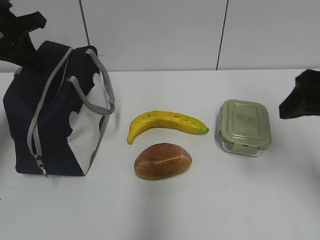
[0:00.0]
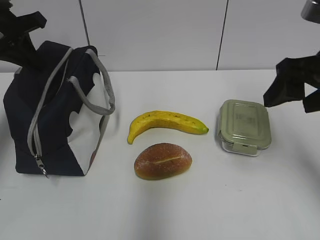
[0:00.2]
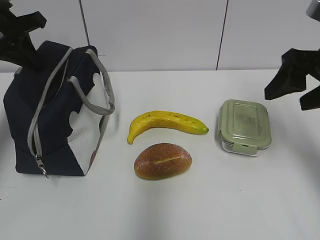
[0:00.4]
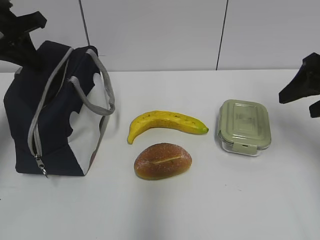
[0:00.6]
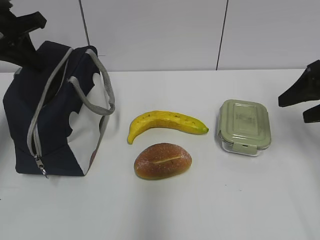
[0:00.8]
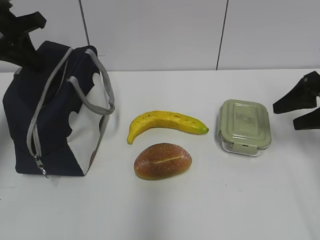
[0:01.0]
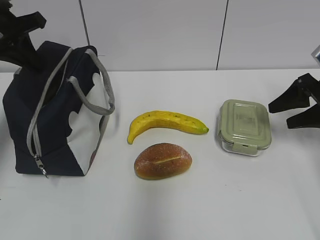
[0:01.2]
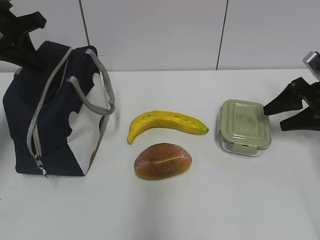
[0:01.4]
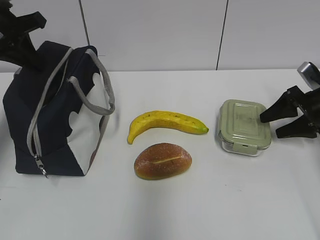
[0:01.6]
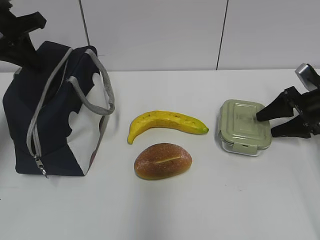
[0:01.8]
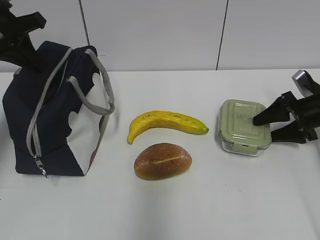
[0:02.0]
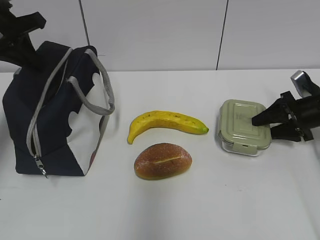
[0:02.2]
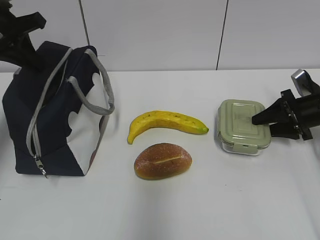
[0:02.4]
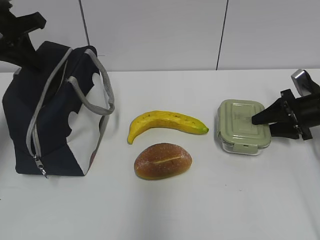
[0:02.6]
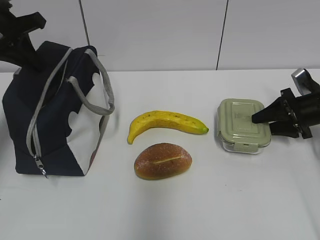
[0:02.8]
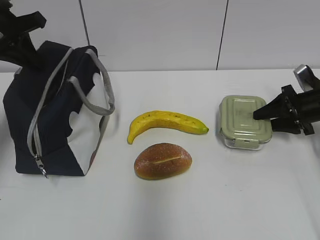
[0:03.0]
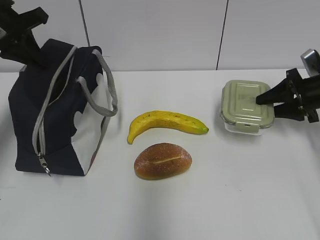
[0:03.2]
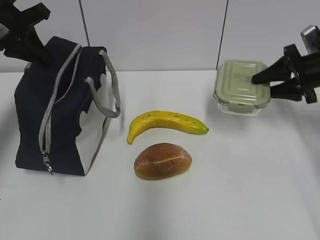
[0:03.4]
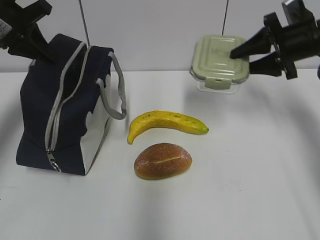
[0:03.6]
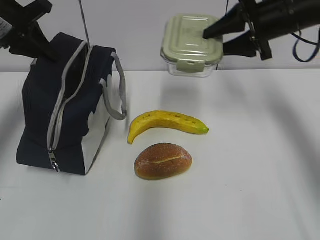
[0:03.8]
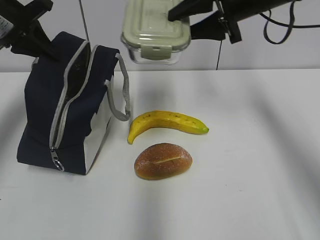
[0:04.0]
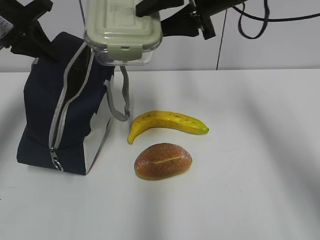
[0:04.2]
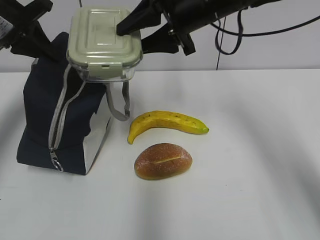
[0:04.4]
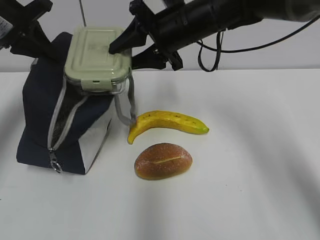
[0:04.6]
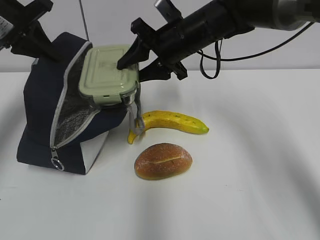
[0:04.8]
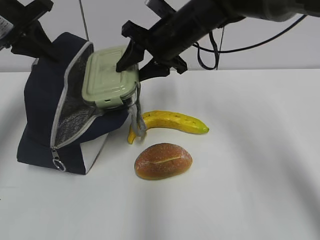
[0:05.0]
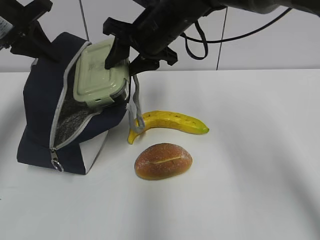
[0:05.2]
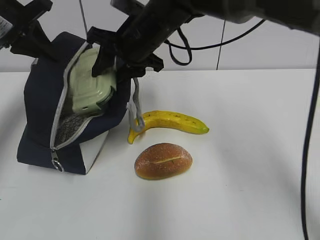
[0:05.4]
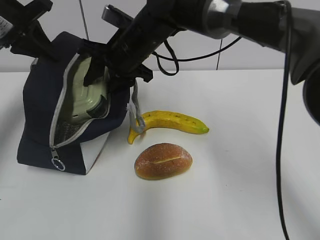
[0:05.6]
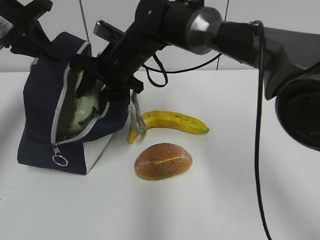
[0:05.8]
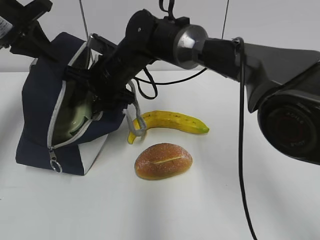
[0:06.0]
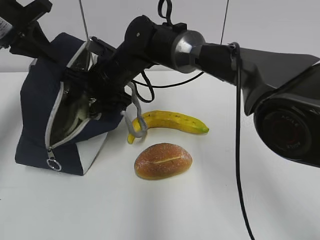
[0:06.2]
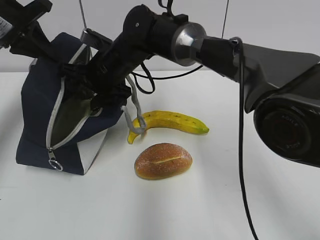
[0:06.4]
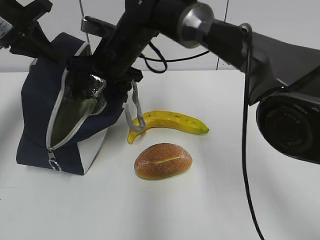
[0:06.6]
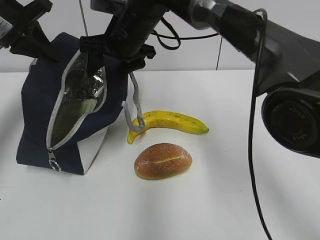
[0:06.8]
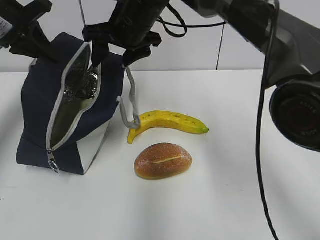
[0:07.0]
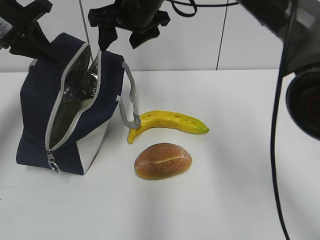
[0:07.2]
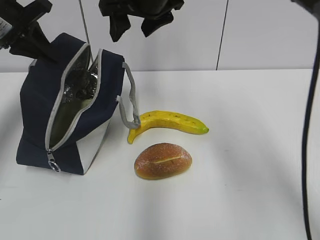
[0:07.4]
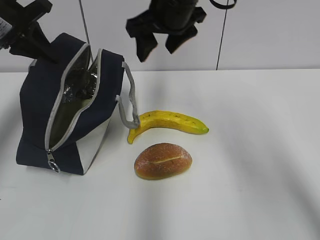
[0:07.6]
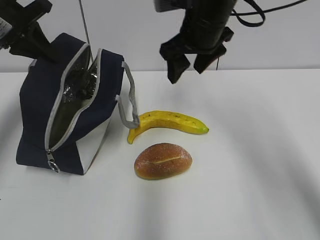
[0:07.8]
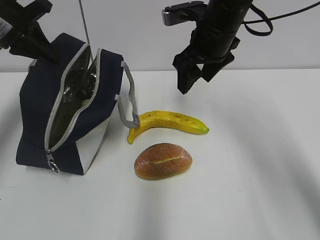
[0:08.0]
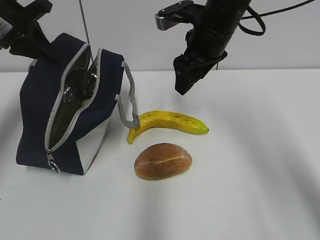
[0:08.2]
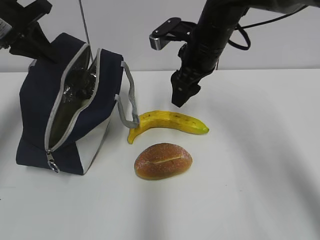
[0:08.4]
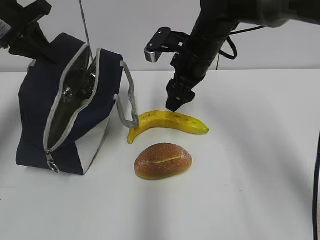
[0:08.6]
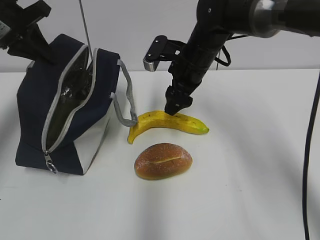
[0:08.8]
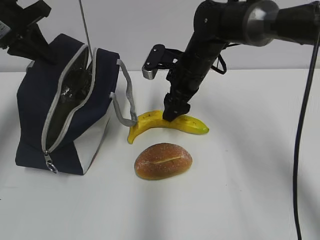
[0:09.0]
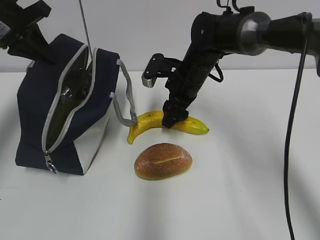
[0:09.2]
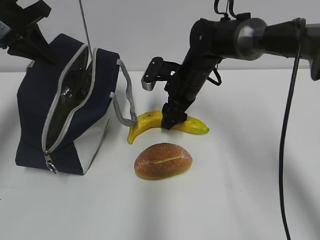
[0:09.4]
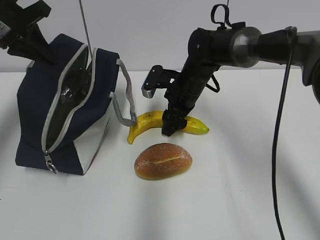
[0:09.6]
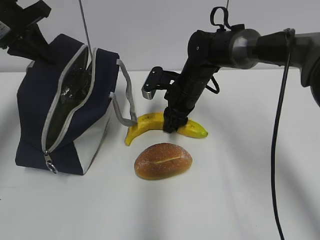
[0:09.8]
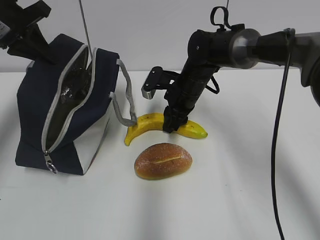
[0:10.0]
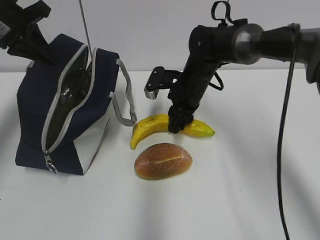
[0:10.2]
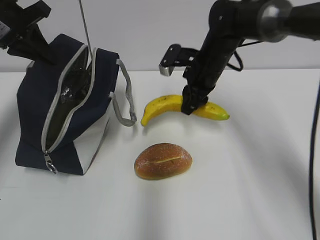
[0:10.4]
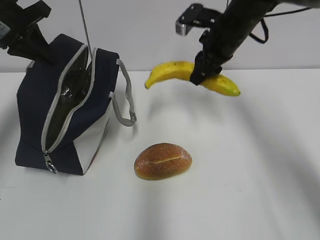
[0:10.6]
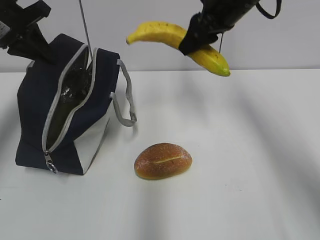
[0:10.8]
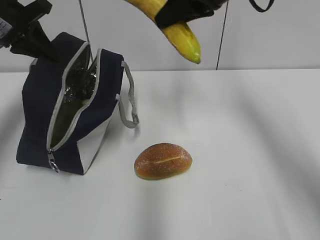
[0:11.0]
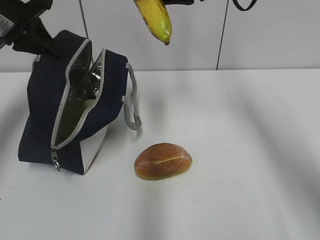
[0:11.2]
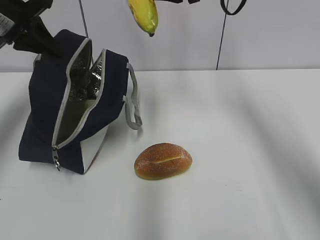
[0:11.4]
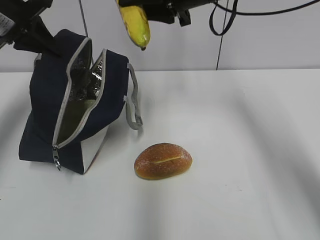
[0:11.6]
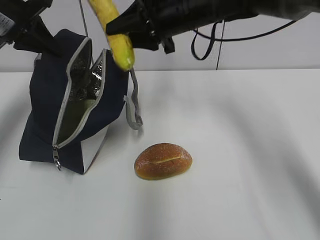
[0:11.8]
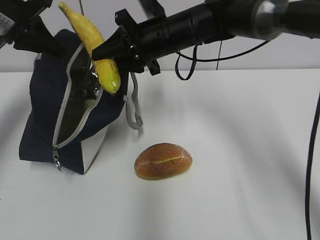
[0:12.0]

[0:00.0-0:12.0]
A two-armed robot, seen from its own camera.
Step, 0.0 to 2.4 s: Grab the lunch box with your right hand.
Step, 5.0 to 7.0 s: Place it into the bag with your right hand.
Step, 7.2 to 9.8 s: Grab the banana with your right hand.
0.0 to 1.6 s: The right gripper travels downward, forward and to the right by approximately 25 cm.
1.6 to 3.0 s: The right gripper closes its fingers.
3.0 to 4.4 s: The right gripper heads to the left and upward, covering roughly 30 cm.
4.4 to 6.0 s: The right gripper moves to the left and downward, about 20 cm.
6.0 to 7.6 s: The right gripper heads upward and to the right, covering about 15 cm.
7.6 to 9.0 s: The right gripper heads downward, covering roughly 15 cm.
9.0 to 10.4 s: The right gripper closes up.
10.4 to 12.0 s: The right gripper is displaced to the left and upward by roughly 10 cm.

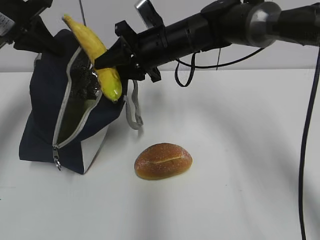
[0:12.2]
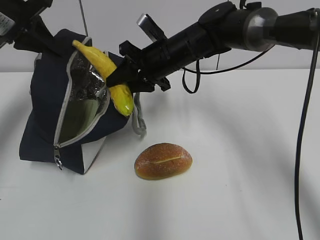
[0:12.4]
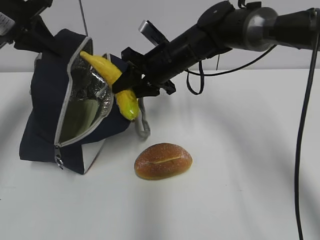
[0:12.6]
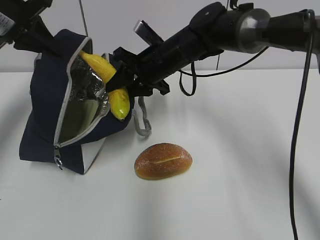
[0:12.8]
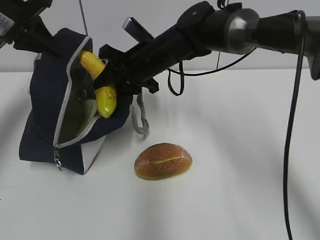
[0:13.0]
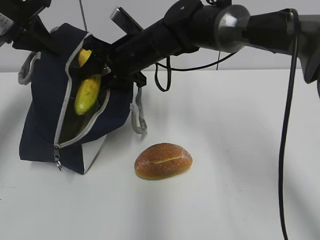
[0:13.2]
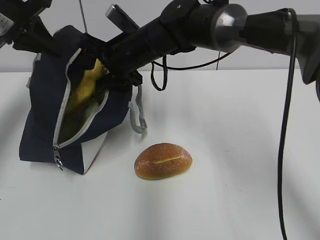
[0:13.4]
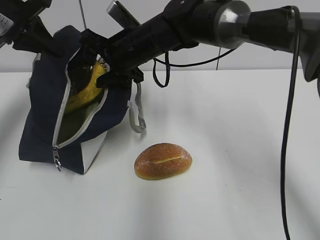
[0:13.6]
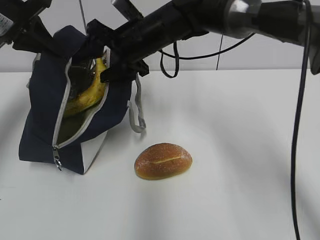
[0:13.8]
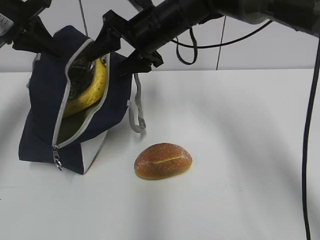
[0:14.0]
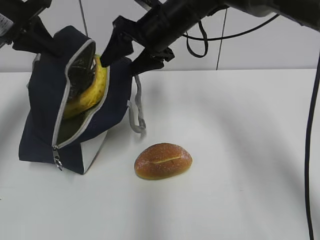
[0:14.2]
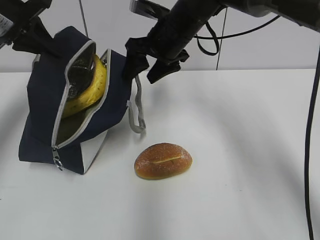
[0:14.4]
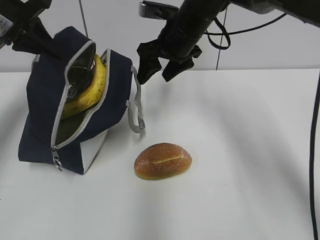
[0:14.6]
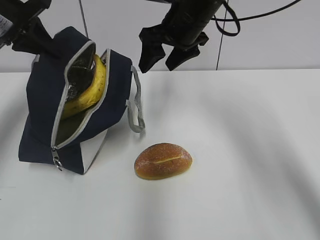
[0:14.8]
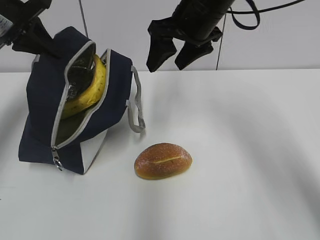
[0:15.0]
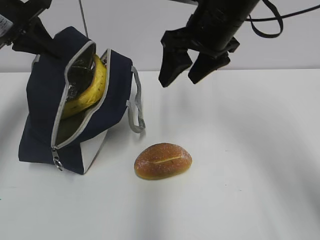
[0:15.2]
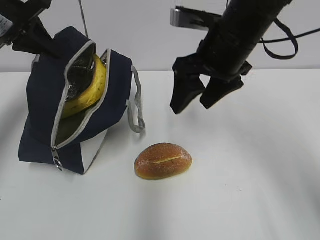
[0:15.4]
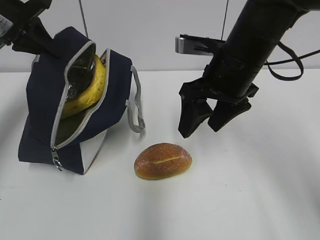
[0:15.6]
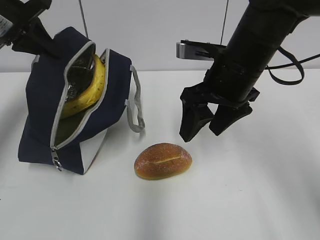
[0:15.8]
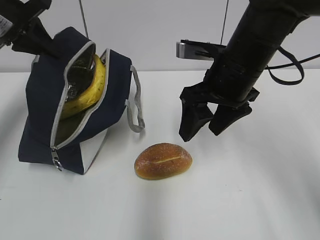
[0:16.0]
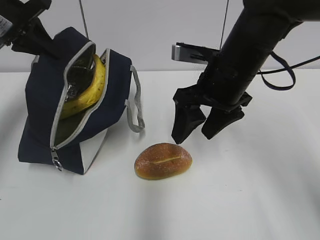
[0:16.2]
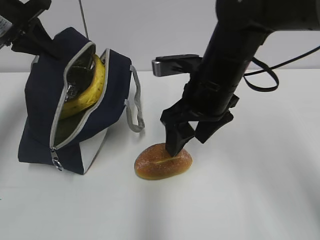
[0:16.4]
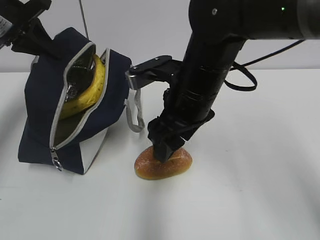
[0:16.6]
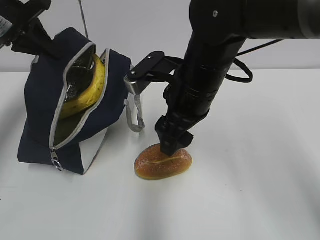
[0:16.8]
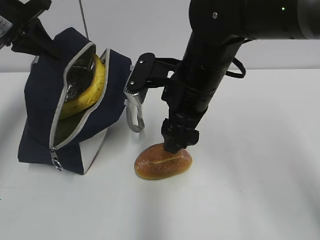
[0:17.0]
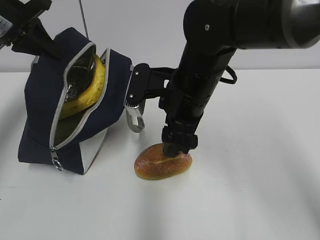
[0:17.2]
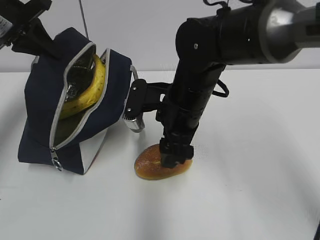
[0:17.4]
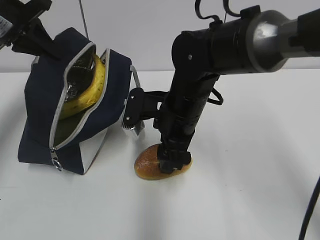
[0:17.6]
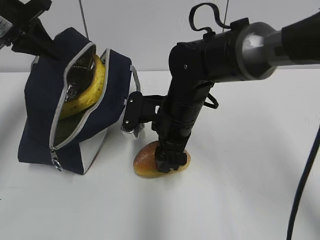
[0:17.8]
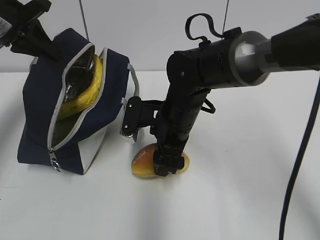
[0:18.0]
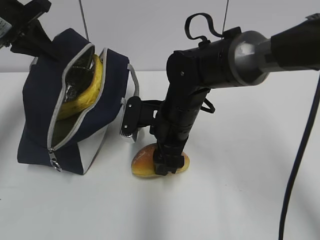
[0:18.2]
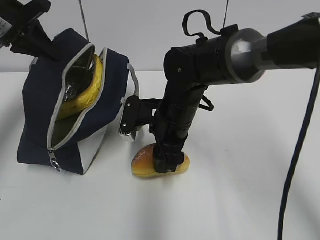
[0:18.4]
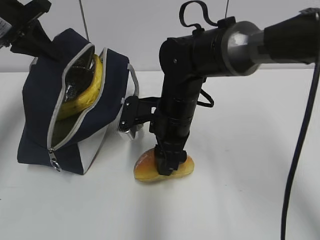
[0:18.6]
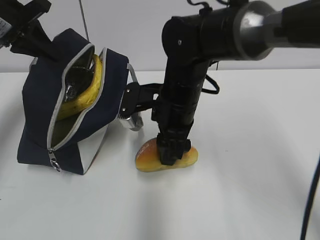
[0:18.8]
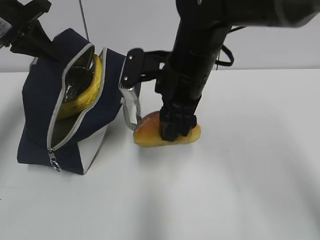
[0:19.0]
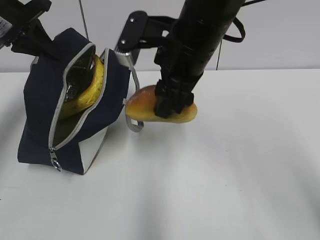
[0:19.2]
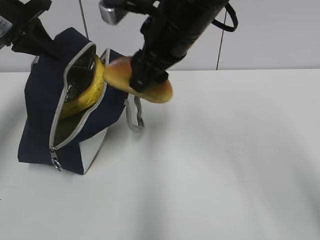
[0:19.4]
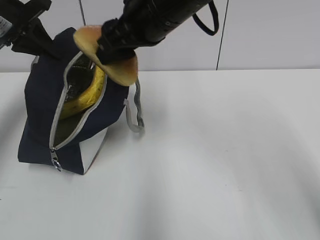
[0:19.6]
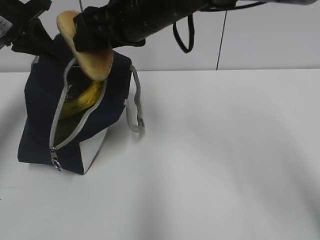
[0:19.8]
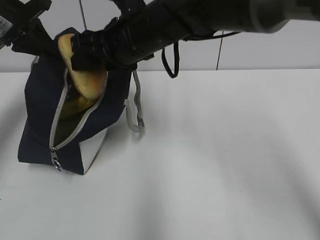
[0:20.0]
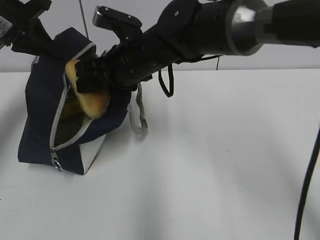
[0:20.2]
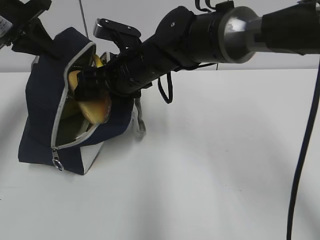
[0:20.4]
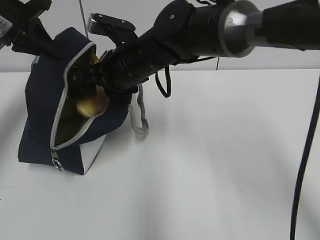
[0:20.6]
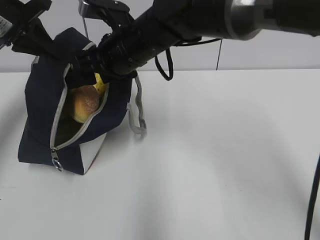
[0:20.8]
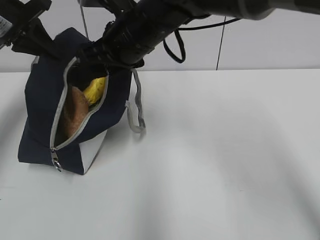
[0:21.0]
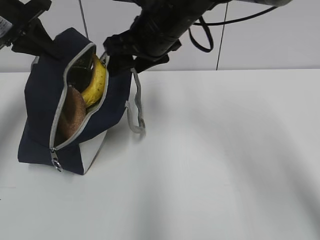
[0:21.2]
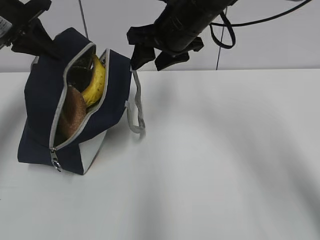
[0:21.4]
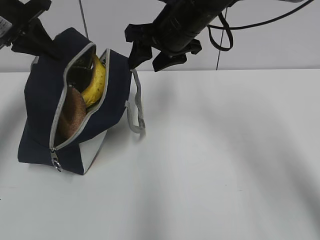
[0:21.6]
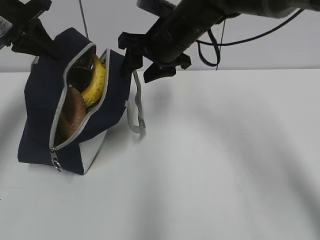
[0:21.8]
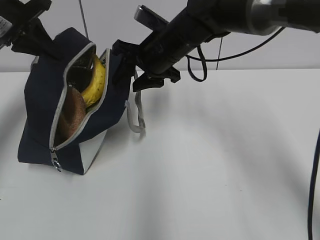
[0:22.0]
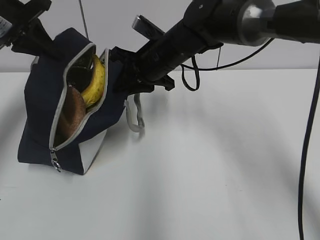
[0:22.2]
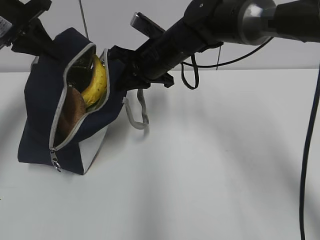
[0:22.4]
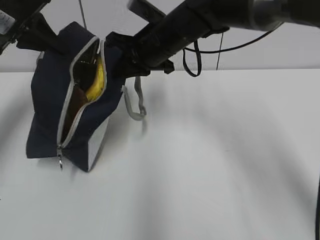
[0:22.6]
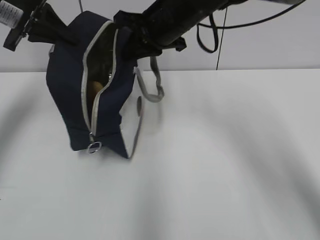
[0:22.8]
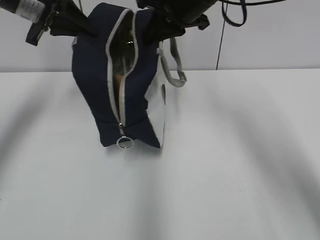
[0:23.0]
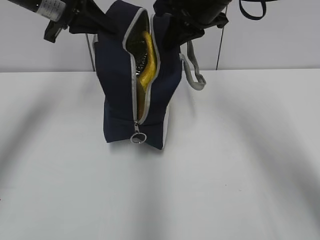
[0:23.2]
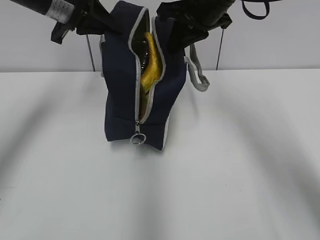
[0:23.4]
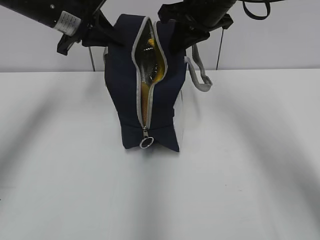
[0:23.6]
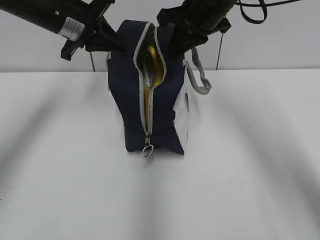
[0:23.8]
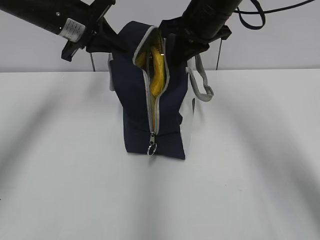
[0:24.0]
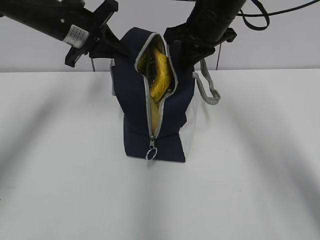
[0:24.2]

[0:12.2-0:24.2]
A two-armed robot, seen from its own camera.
Step, 12.2 to 15.0 s: Place it into the bag with your right hand.
Step, 15.2 to 18.2 s: Grab the bread with your right hand.
Step, 18.4 to 21.2 s: Place it into the bag with your right hand.
Step, 21.8 to 22.4 s: Grab the lunch bag with your right hand.
Step, 22.6 to 22.8 s: Move the lunch bag to the left.
12.2 to 13.8 s: The right gripper opens up.
13.8 to 15.2 s: The right gripper moves to the right, backward and upward, about 15 cm.
15.2 to 16.6 s: The right gripper moves downward and backward, about 10 cm.
16.6 to 18.2 s: The right gripper shifts about 10 cm downward.
18.2 to 19.8 s: The right gripper goes roughly 15 cm upward.
19.8 to 21.2 s: The right gripper travels downward and back again, roughly 10 cm each way.
21.2 to 22.6 s: The right gripper ends up approximately 5 cm from where it was, and closes.
22.6 to 24.2 s: The grippers both shift to the right by roughly 10 cm.
